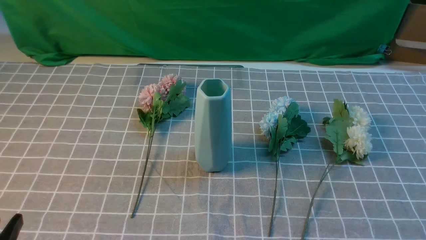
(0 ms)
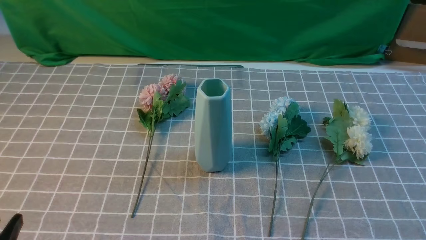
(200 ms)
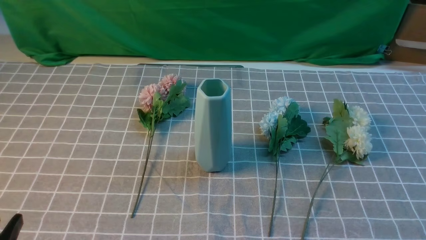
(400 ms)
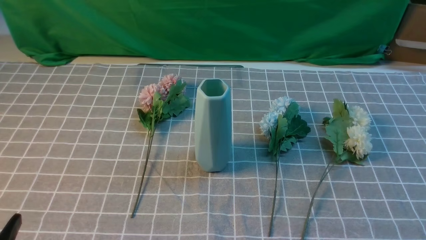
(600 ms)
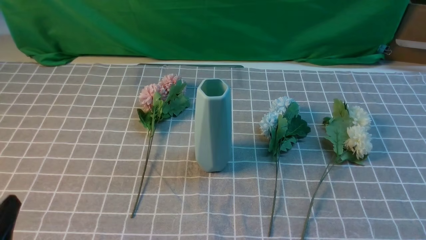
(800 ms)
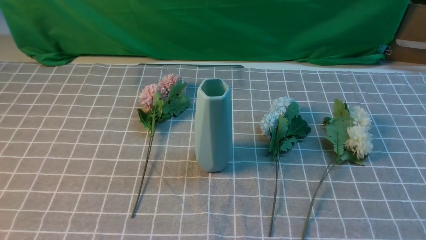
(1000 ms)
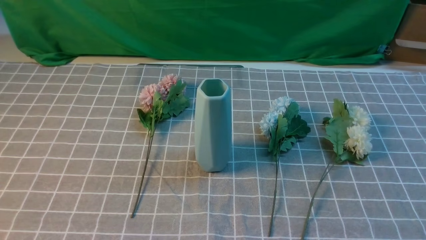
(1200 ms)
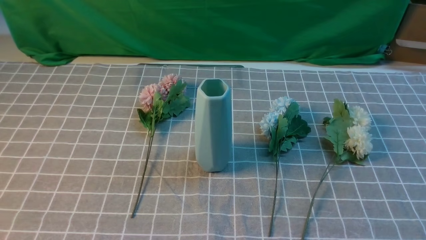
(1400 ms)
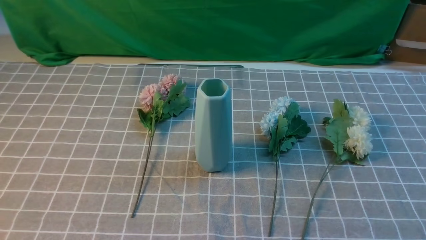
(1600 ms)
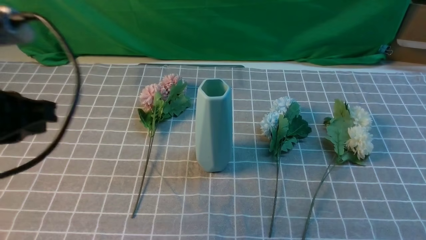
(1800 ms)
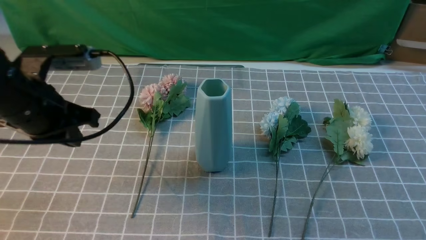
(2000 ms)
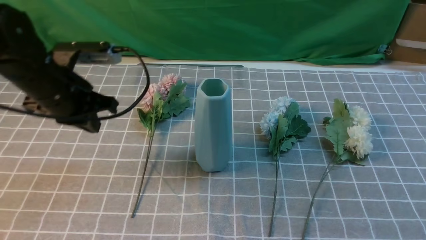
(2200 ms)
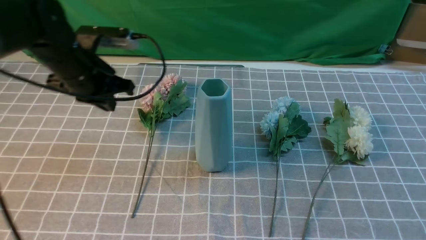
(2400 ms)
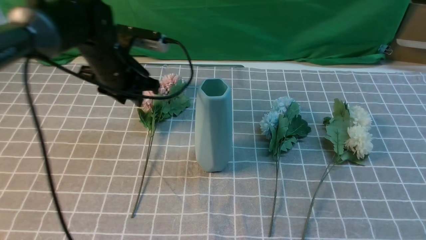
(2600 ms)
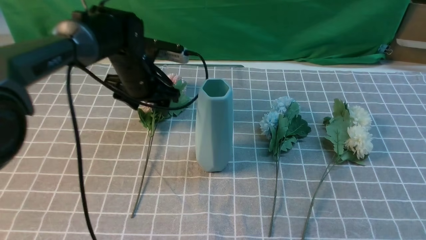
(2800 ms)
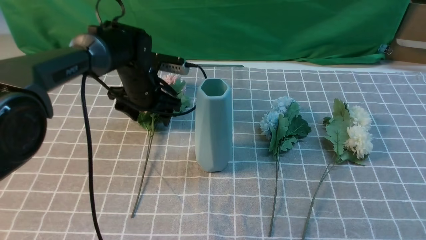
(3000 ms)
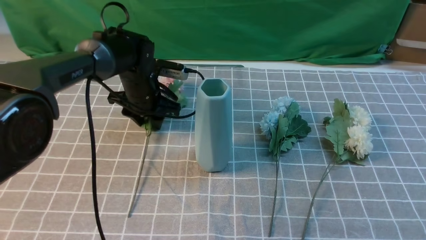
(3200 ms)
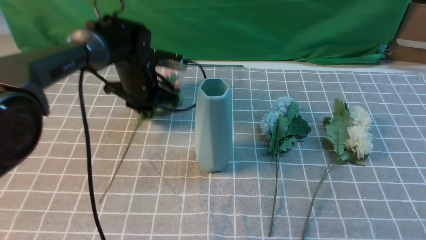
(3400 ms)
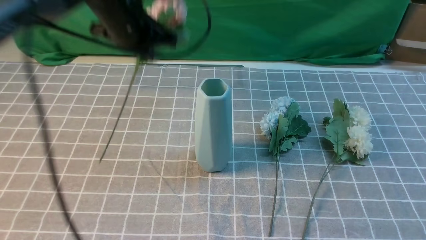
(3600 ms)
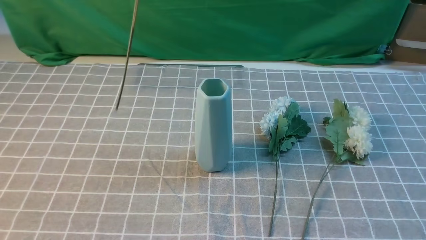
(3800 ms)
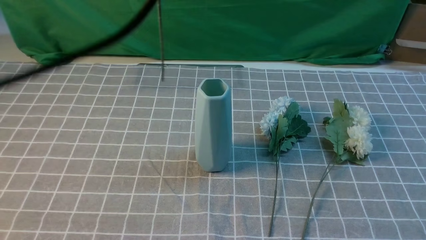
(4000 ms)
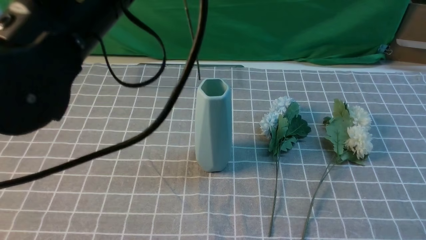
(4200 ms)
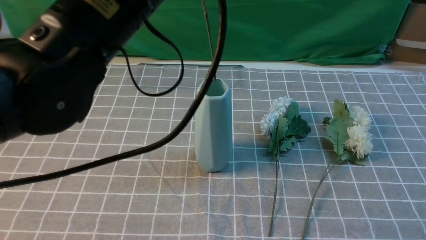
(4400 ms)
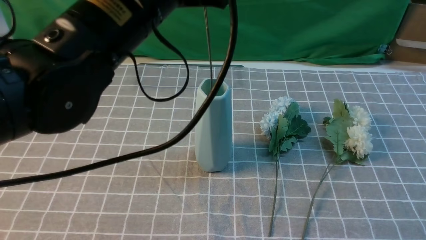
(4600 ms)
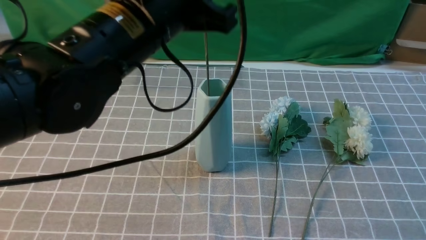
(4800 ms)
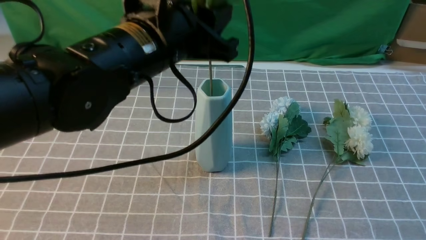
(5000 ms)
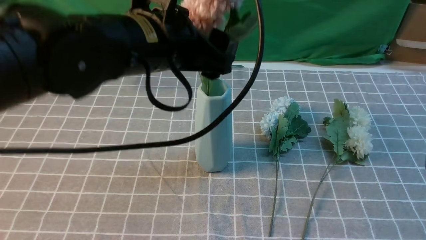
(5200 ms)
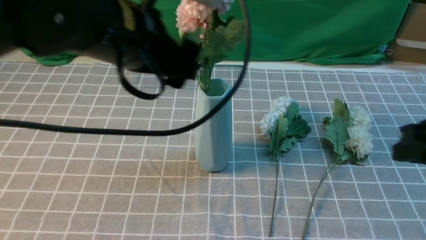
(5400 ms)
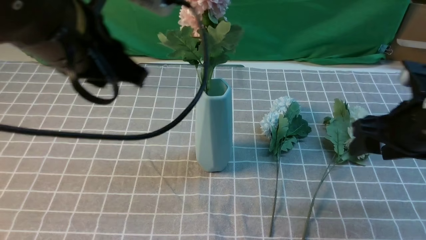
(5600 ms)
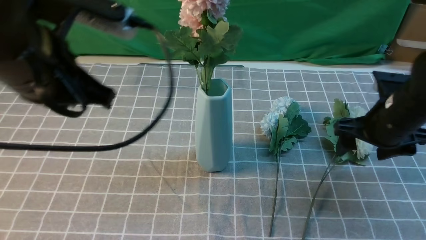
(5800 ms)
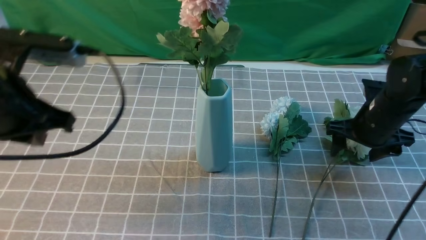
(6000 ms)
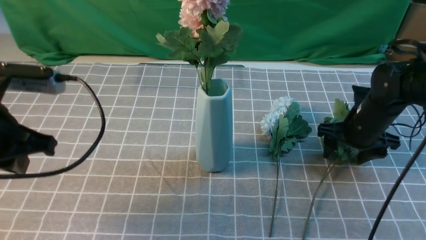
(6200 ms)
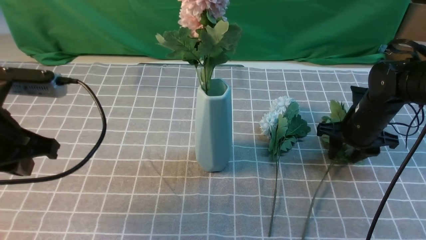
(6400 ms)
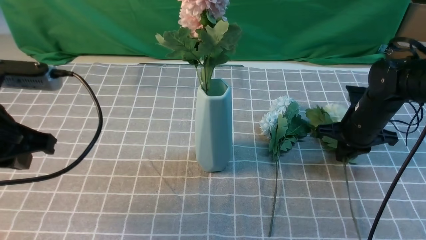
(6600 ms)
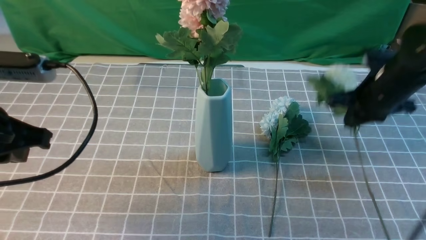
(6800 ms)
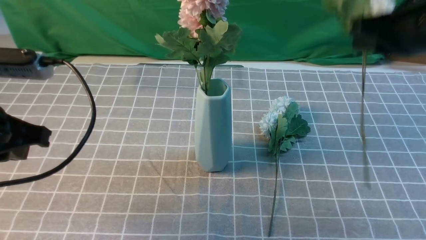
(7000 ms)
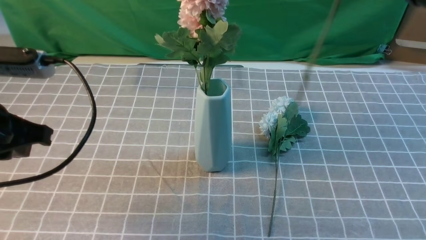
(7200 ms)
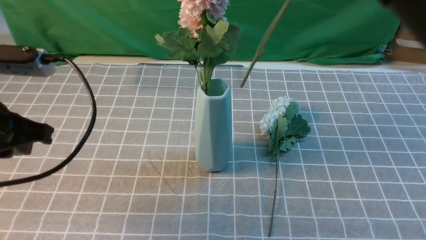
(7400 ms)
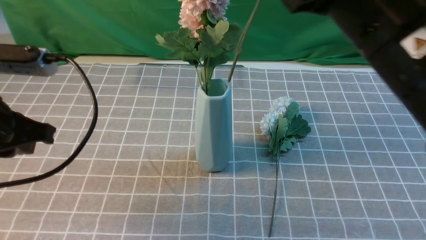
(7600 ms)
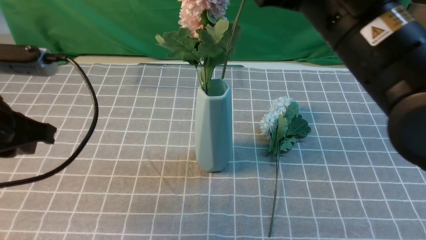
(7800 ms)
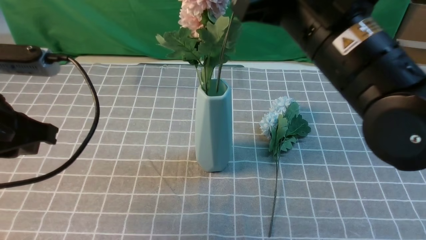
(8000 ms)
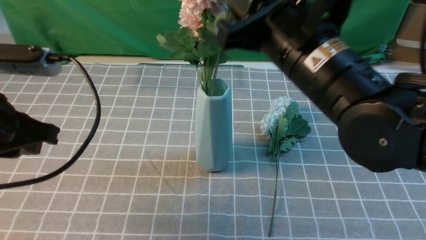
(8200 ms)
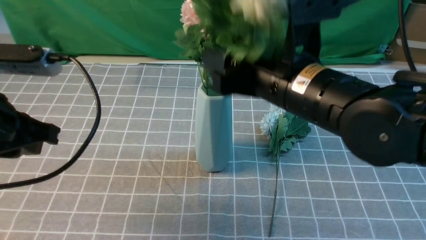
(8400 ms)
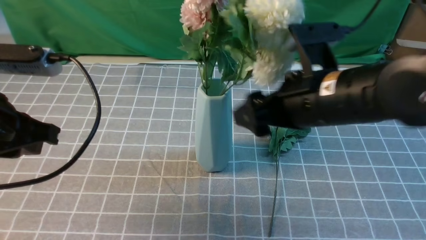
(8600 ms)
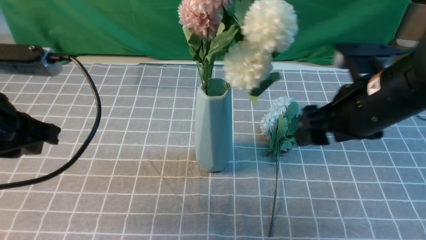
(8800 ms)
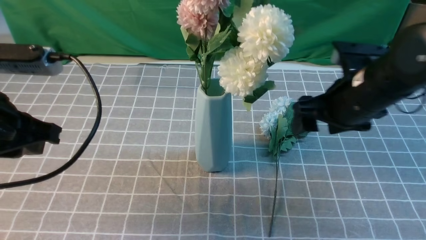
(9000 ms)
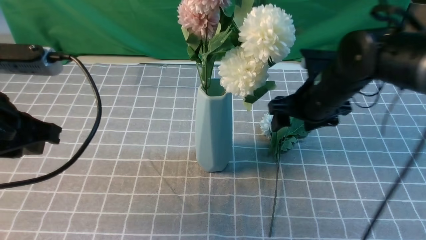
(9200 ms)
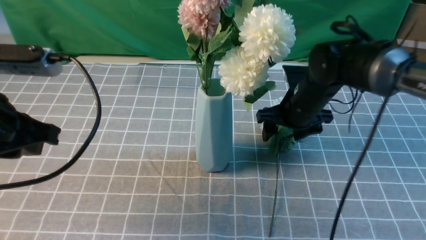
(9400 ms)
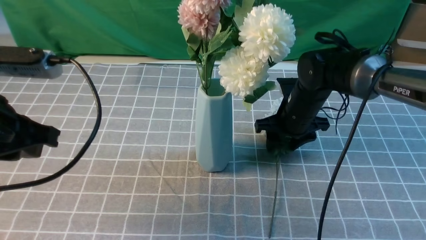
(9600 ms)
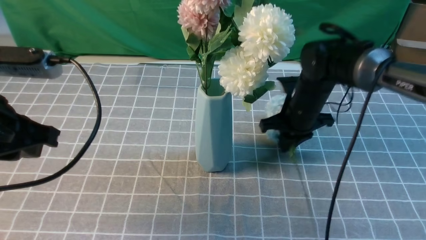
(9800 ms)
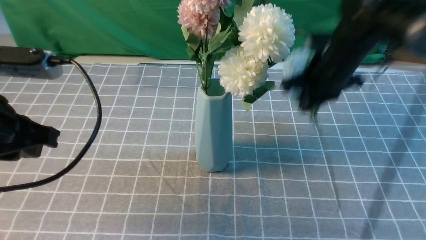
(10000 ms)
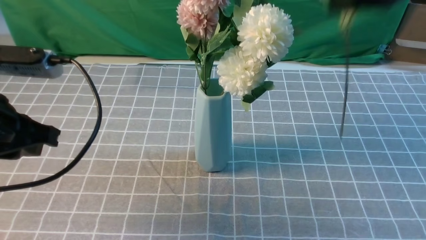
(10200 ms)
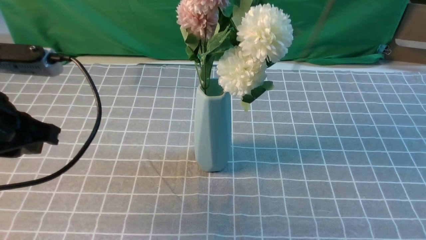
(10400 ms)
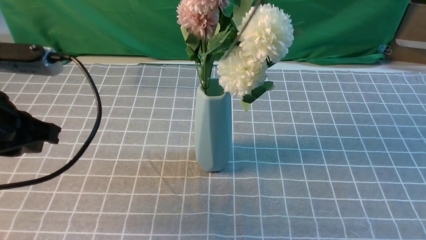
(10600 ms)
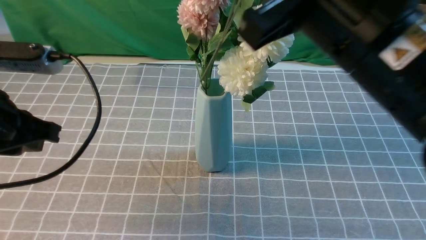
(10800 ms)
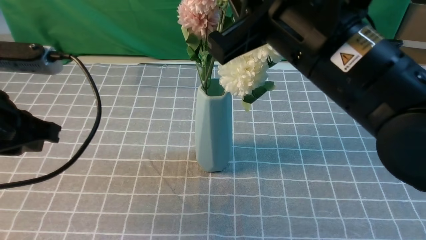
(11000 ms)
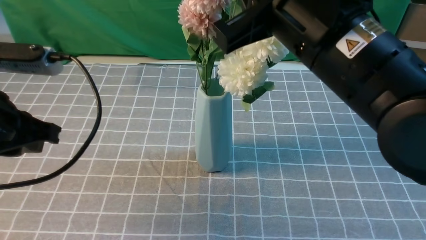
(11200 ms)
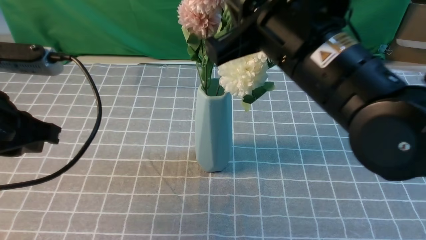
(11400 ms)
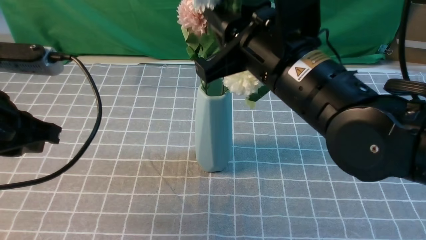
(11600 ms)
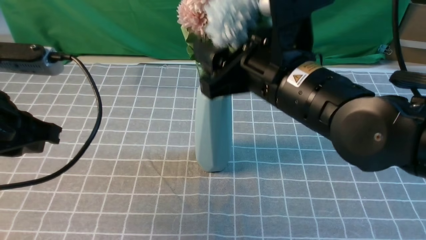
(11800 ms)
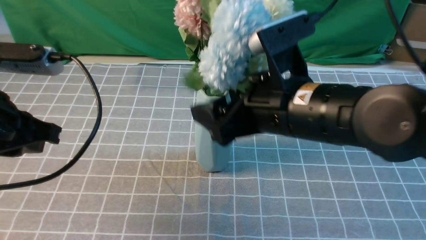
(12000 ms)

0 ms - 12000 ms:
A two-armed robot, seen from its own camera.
Task of the whole recording: insert the flowers into the vase on the table with the grey tablecloth.
Step, 0 ms - 3000 ms: use the left arm to grab a bunch of fresh flowers.
Step, 3200 ms - 5400 ms: use the left arm to insert the flowers into the vase.
Step, 5600 ms - 6600 ms: use the right arm to grab a bunch of fresh flowers.
Step, 6800 ms - 8800 ms: use the right arm to insert the flowers into the vase.
Step, 9200 ms - 9800 ms: use the right arm to grab a bunch of fresh flowers.
1600 ms - 3000 ms: The right gripper shifts approximately 10 cm upward and forward. Meanwhile the left gripper travels forward and downward by roughly 40 cm, and opens up.
3000 ms - 4400 ms: The left gripper travels upward and backward by approximately 30 cm, and closes up.
4400 ms - 6000 ms: The right gripper travels forward and downward by some 30 cm, and opens its fingers; the left gripper moves to the left and downward, about 15 cm, and opens, then closes again.
6000 ms - 7600 ms: The right gripper is displaced upward, backward and to the left by approximately 30 cm, and closes up.
7600 ms - 9000 ms: The right gripper is displaced downward and forward by about 20 cm, and opens its fingers.
9000 ms - 10400 ms: The right gripper heads upward and backward, covering about 25 cm, and closes its fingers.
10400 ms - 12000 ms: The right gripper heads downward, covering approximately 20 cm, and opens up.

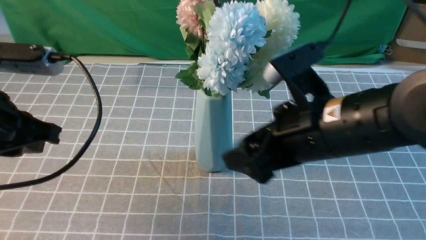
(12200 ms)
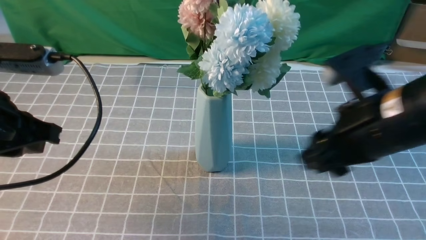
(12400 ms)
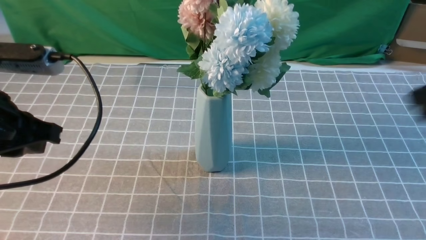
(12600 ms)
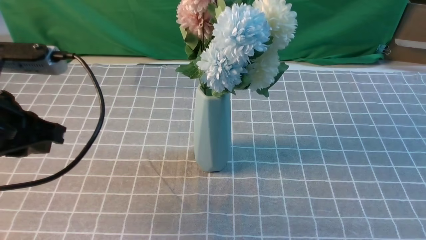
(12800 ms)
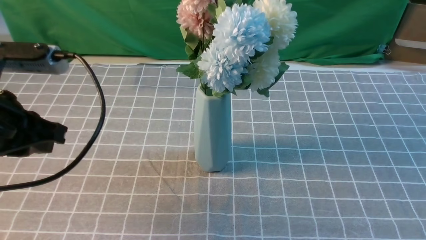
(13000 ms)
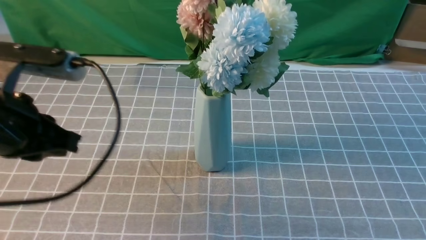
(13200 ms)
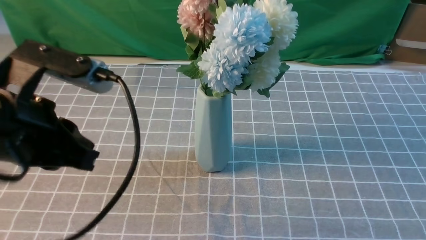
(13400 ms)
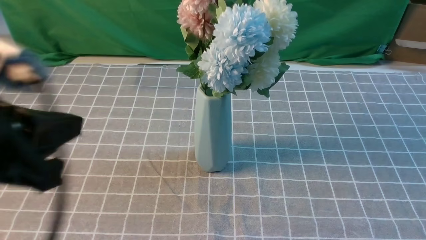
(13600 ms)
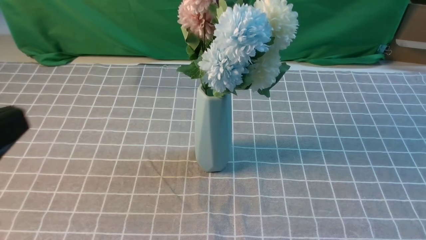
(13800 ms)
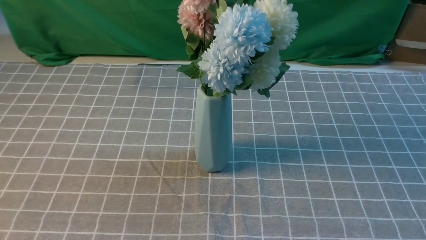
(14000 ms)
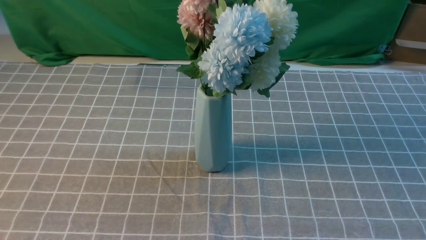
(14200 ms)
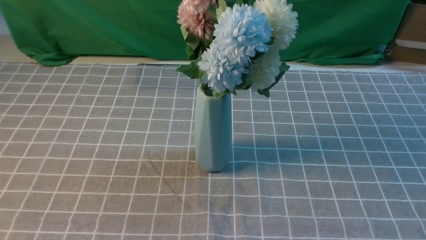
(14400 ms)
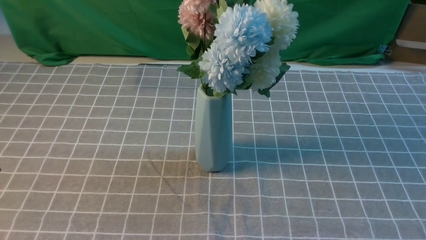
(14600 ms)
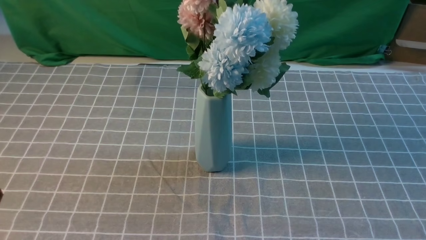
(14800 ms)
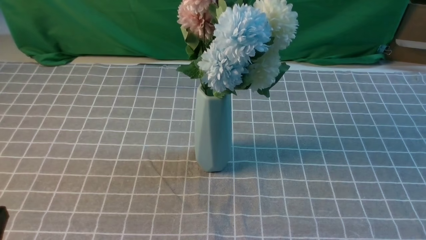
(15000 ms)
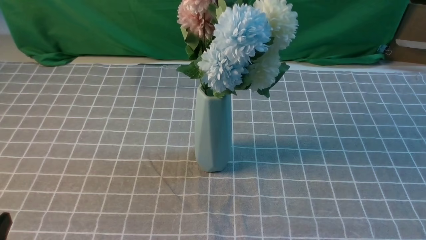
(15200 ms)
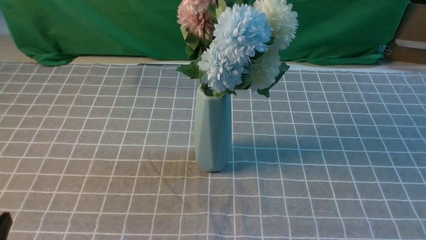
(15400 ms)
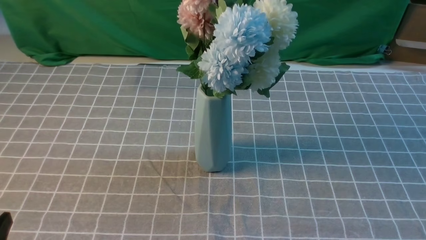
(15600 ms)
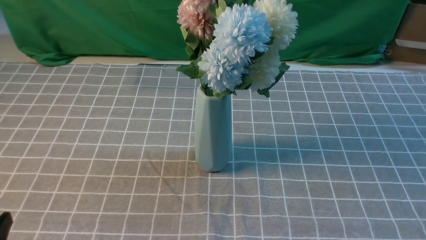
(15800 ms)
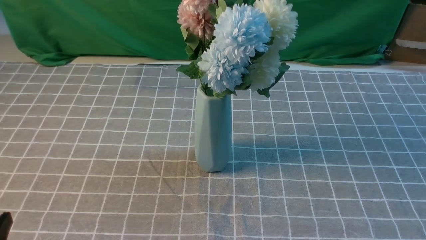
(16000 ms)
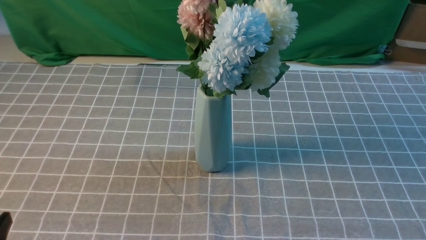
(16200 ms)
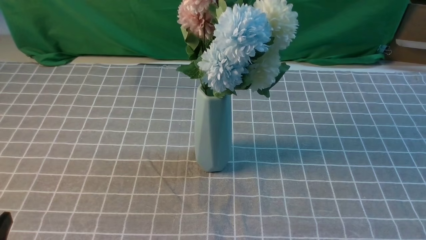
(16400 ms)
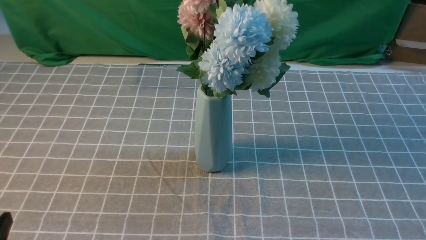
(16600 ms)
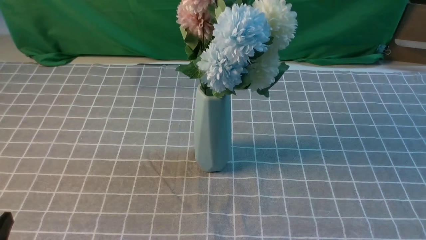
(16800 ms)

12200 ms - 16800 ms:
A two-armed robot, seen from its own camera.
Task of the whole recording: insert the flowers into the vase on the table with the grey tablecloth.
12200 ms - 13800 ms: The left gripper shifts approximately 15 cm backward. The right gripper travels backward and to the right by roughly 30 cm, and closes its fingers.
13800 ms - 15200 ms: The left gripper is displaced downward by some 15 cm.
